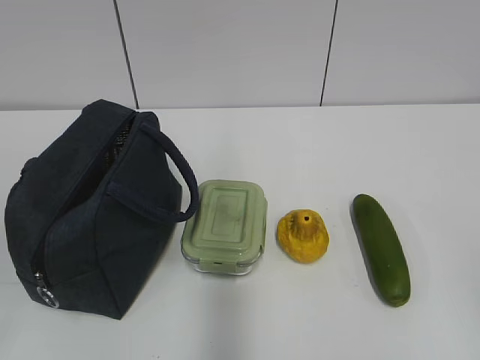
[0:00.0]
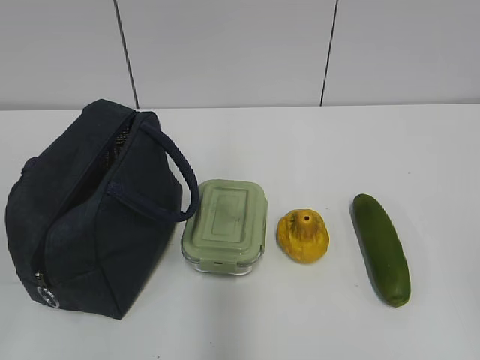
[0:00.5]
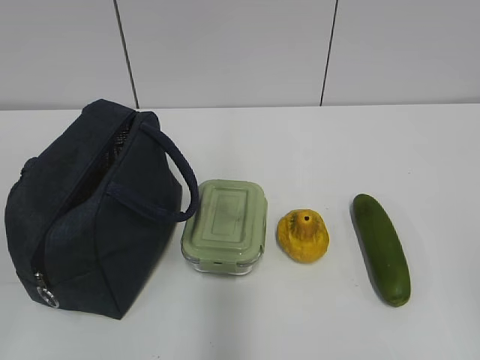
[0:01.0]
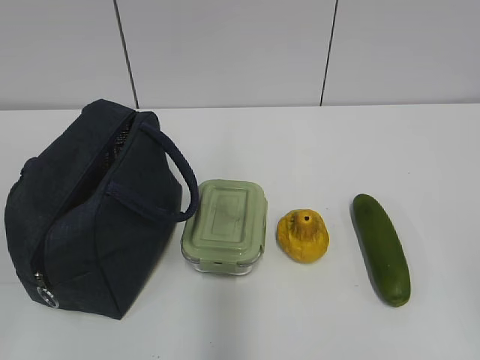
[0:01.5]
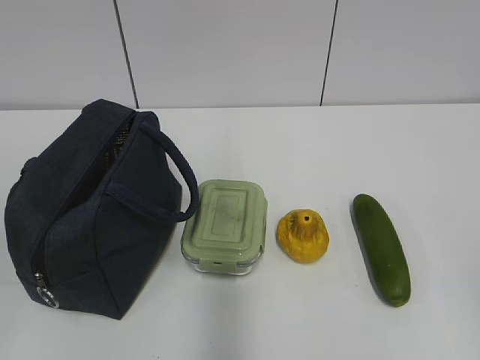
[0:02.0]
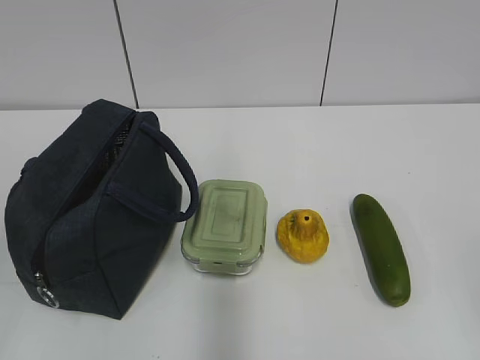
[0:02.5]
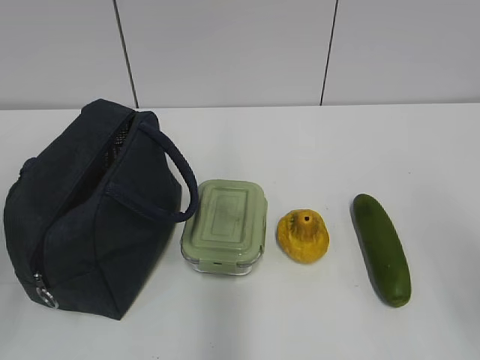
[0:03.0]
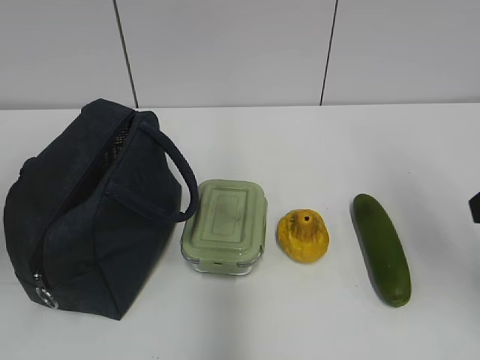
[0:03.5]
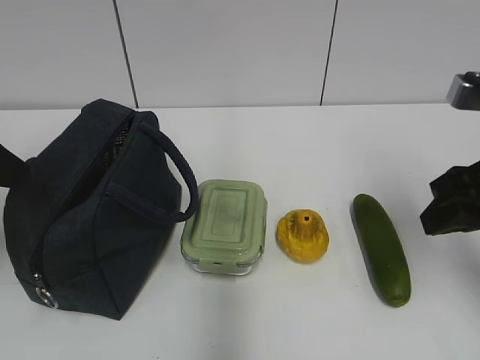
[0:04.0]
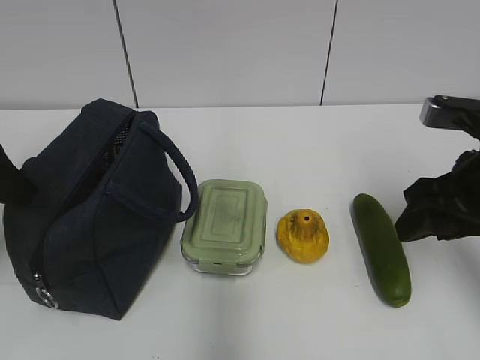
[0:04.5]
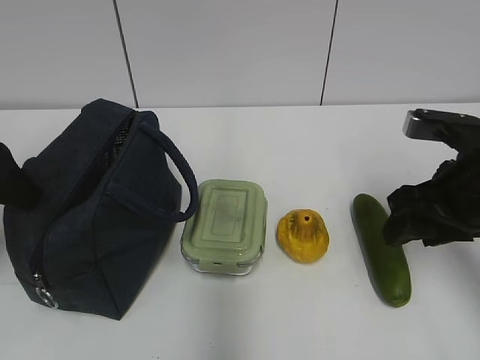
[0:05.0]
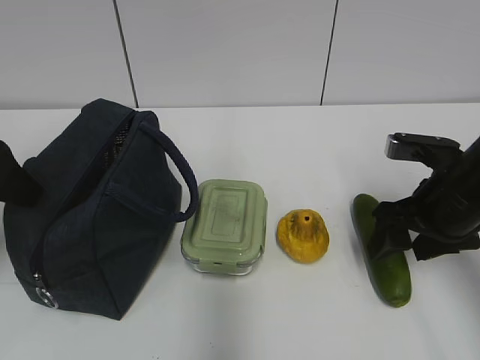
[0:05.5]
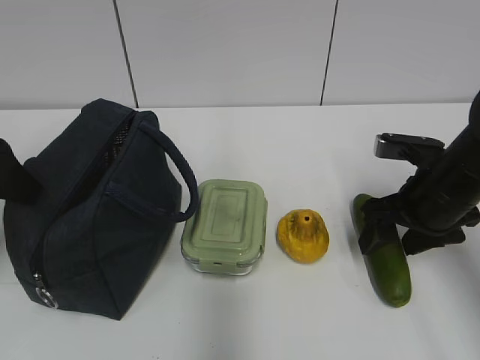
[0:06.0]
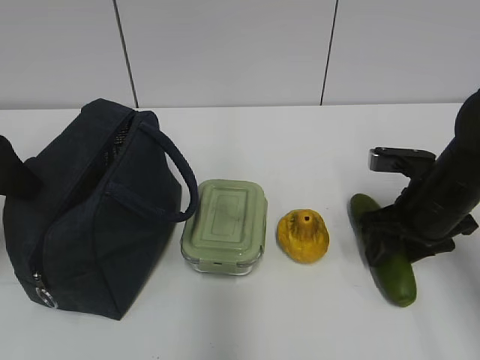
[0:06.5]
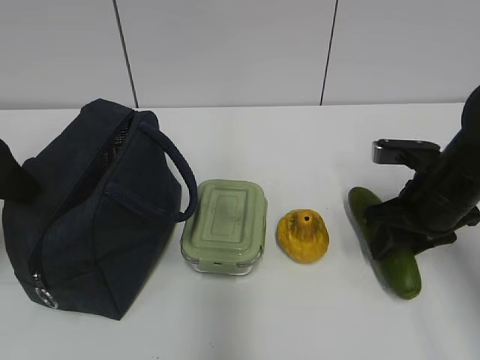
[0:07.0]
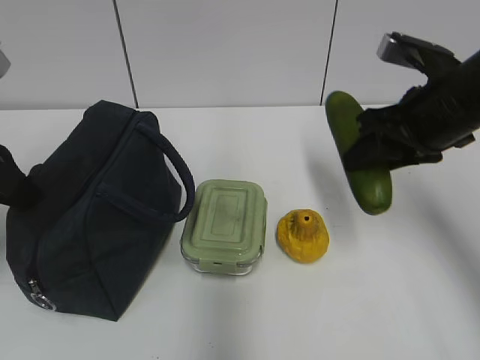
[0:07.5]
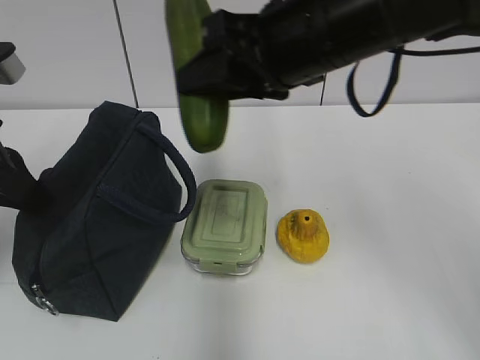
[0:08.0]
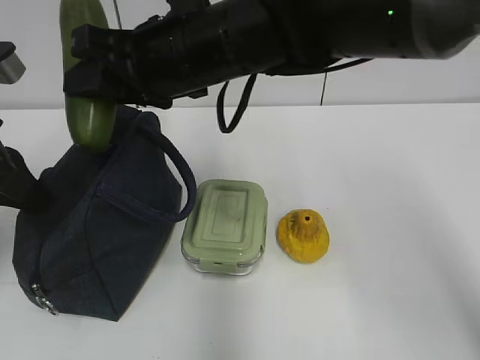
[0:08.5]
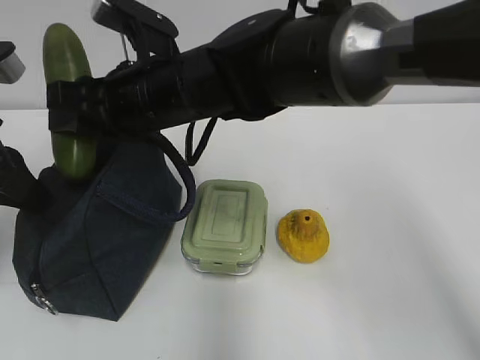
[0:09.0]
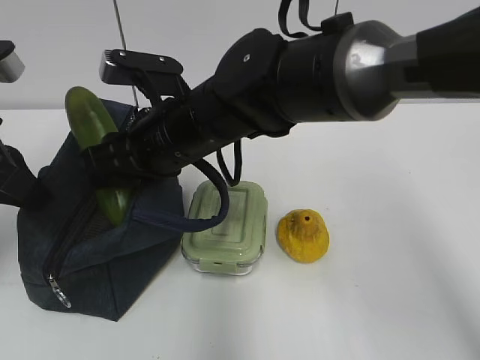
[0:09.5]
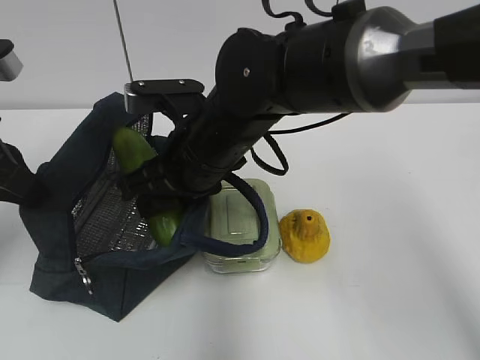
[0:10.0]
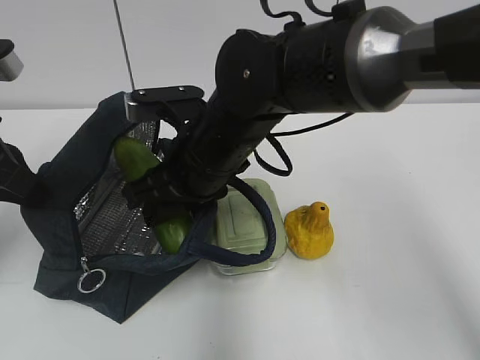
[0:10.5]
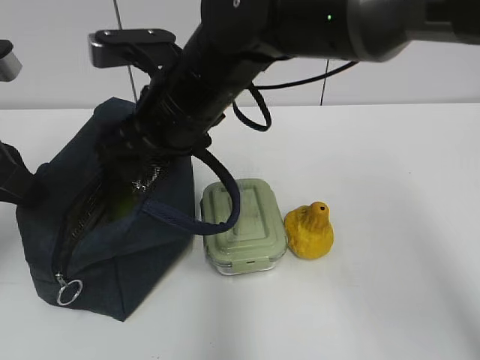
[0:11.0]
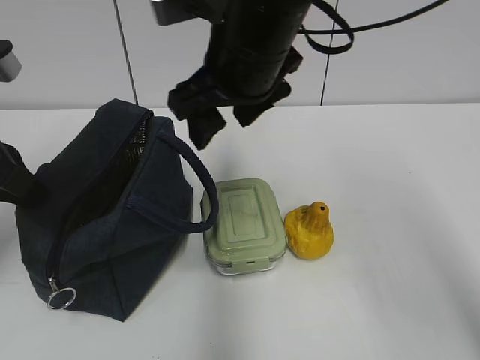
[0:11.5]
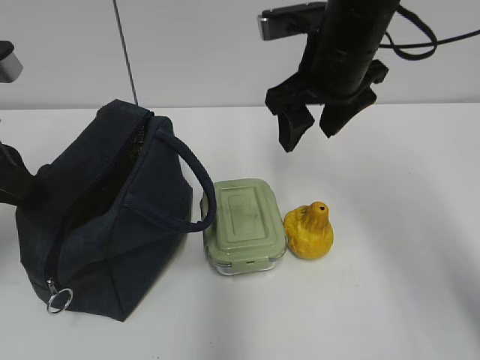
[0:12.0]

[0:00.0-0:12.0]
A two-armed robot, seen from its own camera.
Step, 0:00.0 to 0:06.5: Grab the cucumber with your right hand.
Step, 0:09.5 to 0:10.5: Place it into the bag with your right hand.
0:02.0 to 0:04.0: The two grippers go some 25 cm forward.
0:04.0 to 0:06.0: The right gripper shifts roughly 15 cm downward and forward, and opens.
0:06.0 to 0:08.0: The left gripper closes; the right gripper travels upward and to the left by some 25 cm, and closes its fingers.
0:08.0 to 0:10.0: The right gripper goes some 15 cm downward and to the left.
0:10.0 to 0:12.0: The right gripper is displaced to the right and upward by about 15 cm, and opens up.

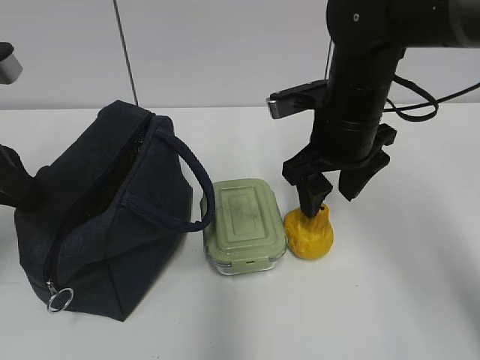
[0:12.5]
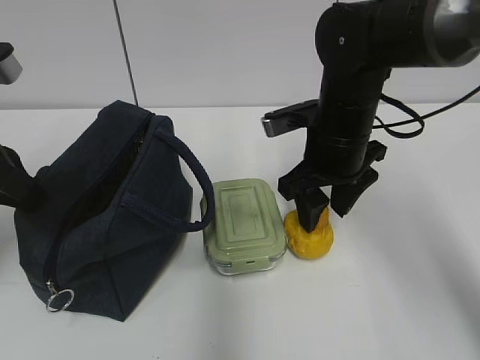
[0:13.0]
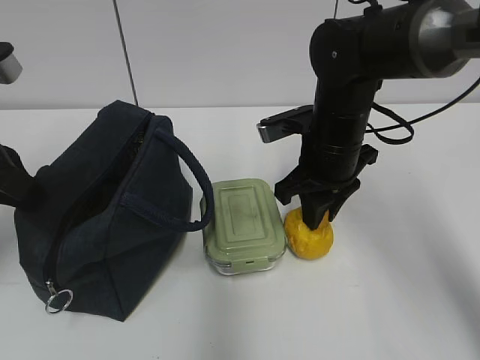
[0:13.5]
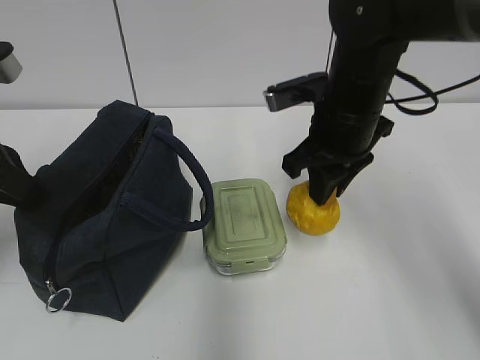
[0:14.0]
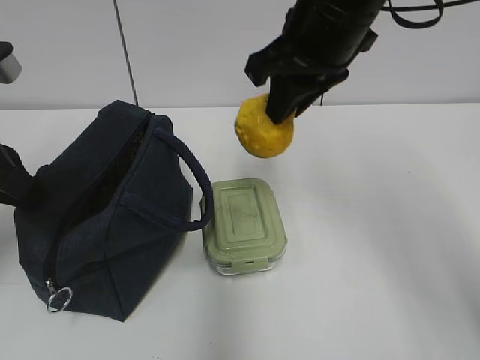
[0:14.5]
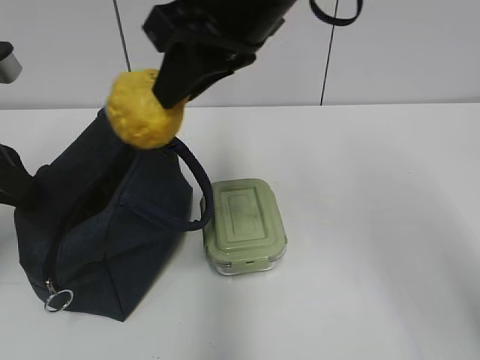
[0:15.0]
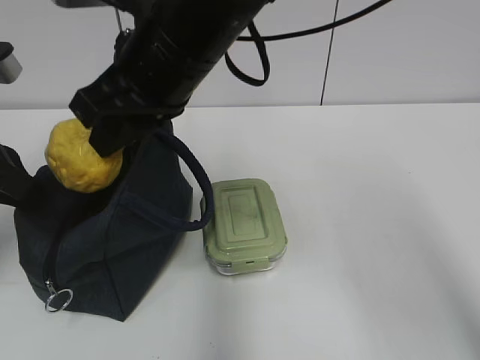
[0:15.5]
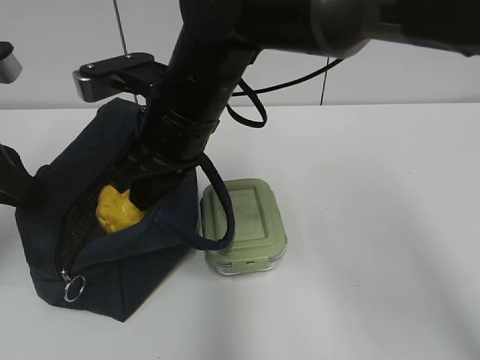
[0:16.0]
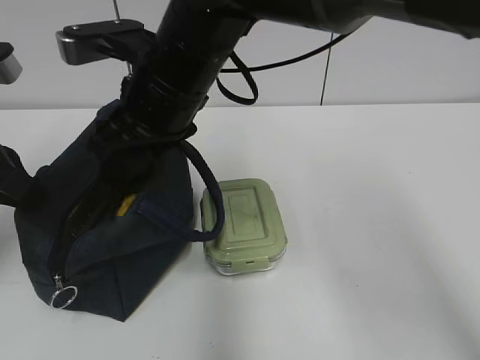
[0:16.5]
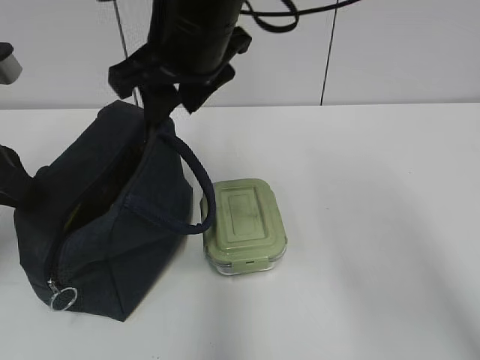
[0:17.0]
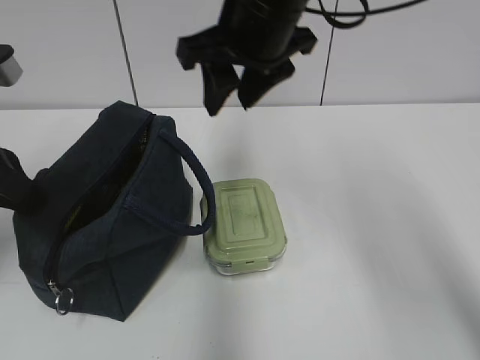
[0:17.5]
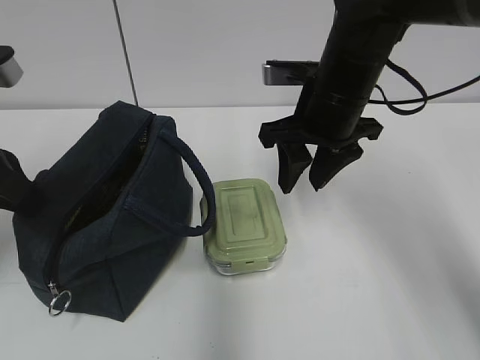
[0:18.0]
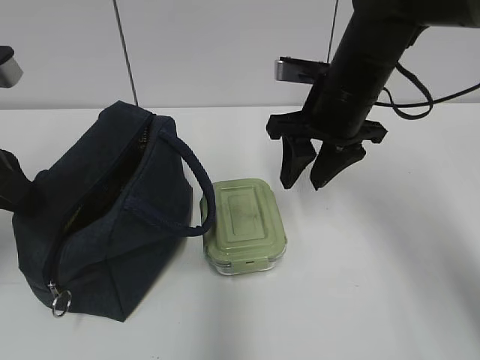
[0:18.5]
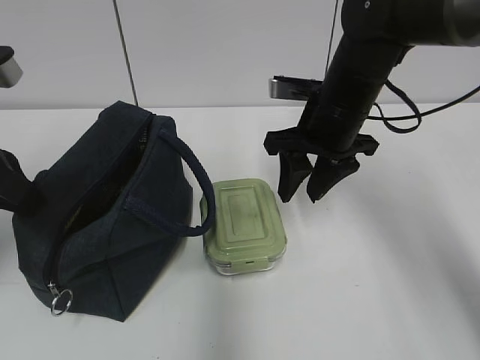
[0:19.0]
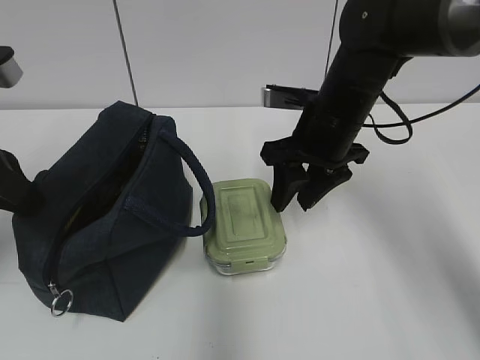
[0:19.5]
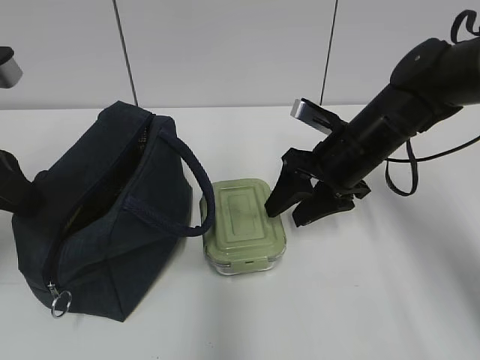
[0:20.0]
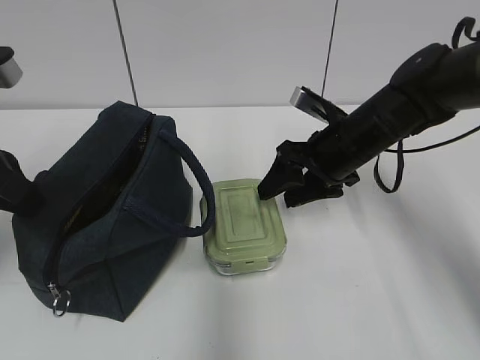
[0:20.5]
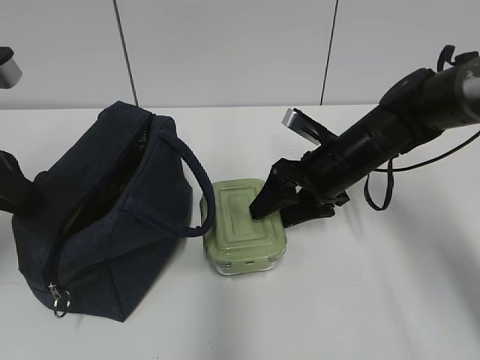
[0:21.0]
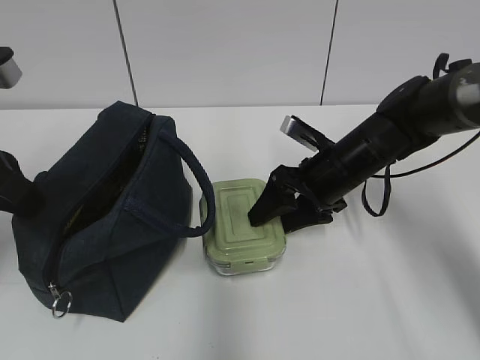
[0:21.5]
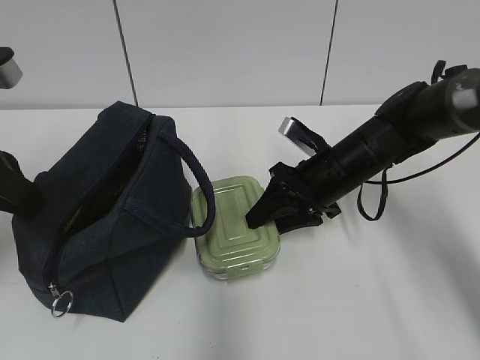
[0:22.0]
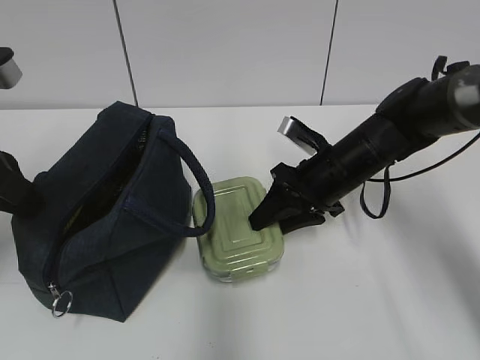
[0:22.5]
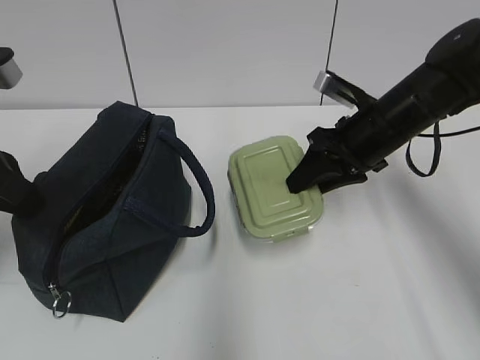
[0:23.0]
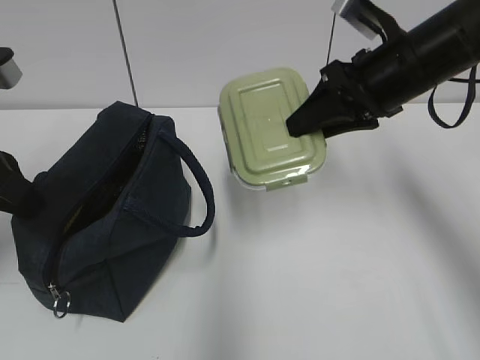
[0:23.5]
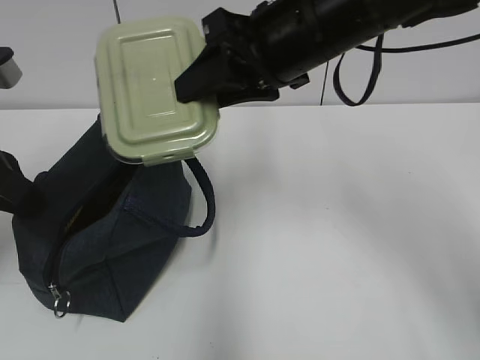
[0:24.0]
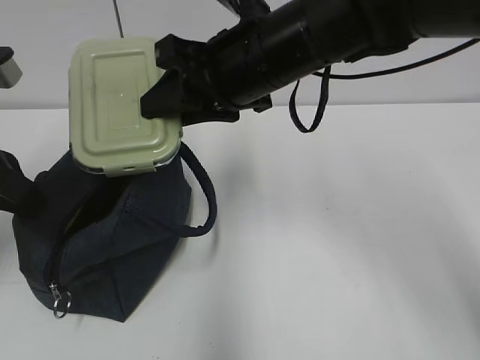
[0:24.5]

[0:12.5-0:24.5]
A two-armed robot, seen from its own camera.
Step, 0:14.0 to 0:16.5: Place it into the bag with your right hand.
Step, 0:17.0 to 0:22.5: Grab the lunch box with your right hand.
0:12.5 to 0:14.5: The right gripper goes about 10 cm upward, and closes up.
0:14.5 to 0:16.5: The right gripper moves to the left and downward, some 15 cm, and opens.
0:16.5 to 0:18.5: The right gripper is displaced to the right by roughly 15 cm.
0:18.5 to 0:20.5: The right gripper moves downward, about 10 cm.
0:20.5 to 0:22.5: The right gripper closes.
0:22.5 to 0:24.5: The right gripper moves upward and to the left, roughly 20 cm.

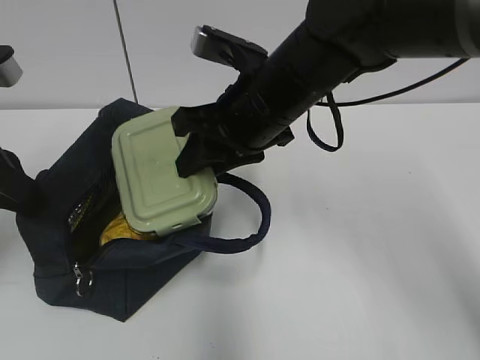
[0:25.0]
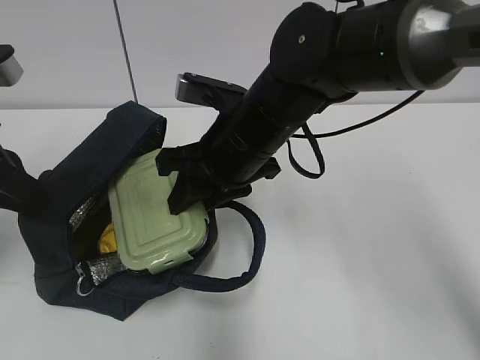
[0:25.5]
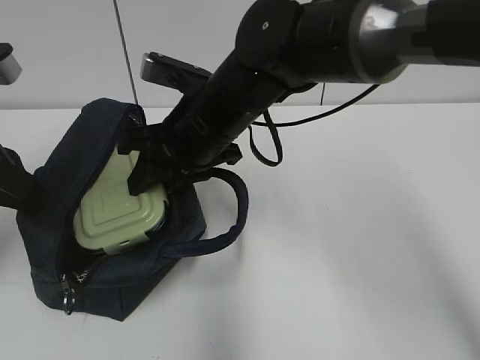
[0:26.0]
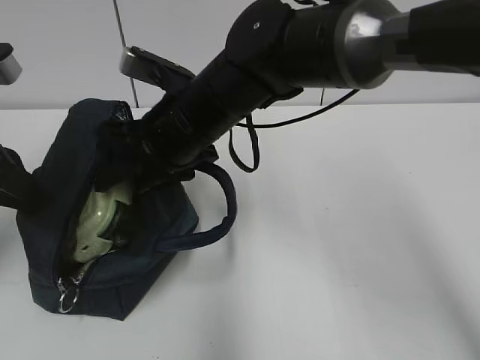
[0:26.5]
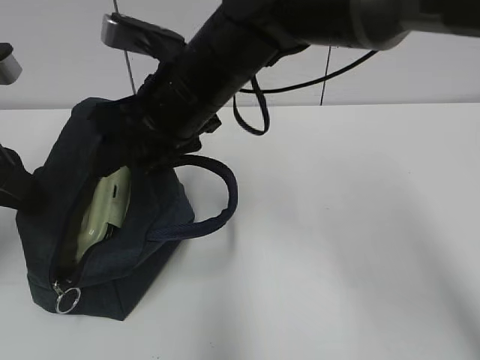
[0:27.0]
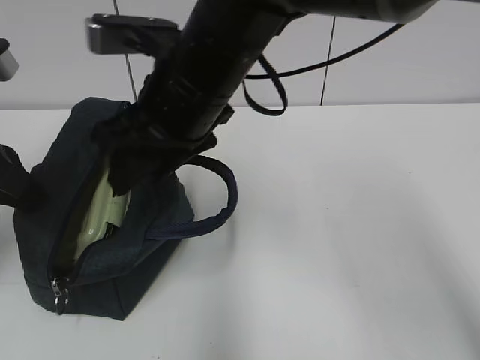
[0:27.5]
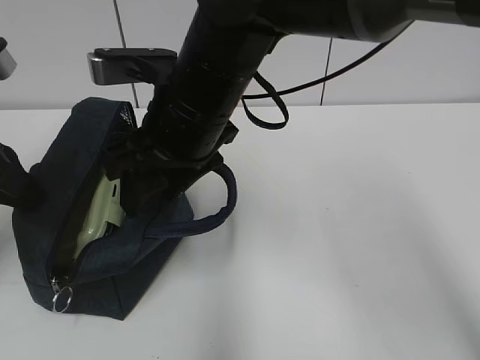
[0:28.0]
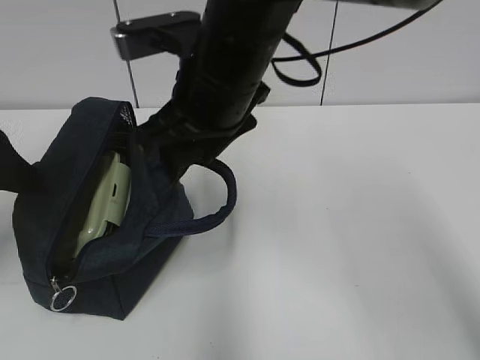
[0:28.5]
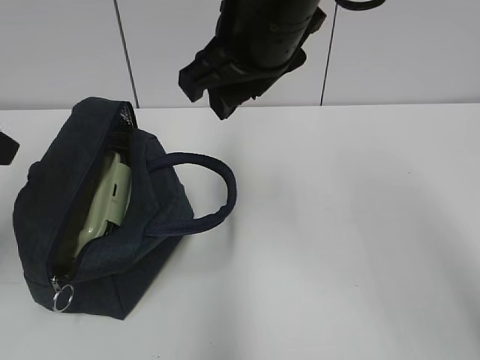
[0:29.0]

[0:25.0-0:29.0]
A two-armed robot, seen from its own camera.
0:25.0 to 0:27.0: The right gripper goes some 5 cm to the left.
0:27.0 to 0:29.0: The left gripper shifts approximately 5 cm upward, and opens its fingers; the right gripper travels upward and to the right by roughly 10 cm.
